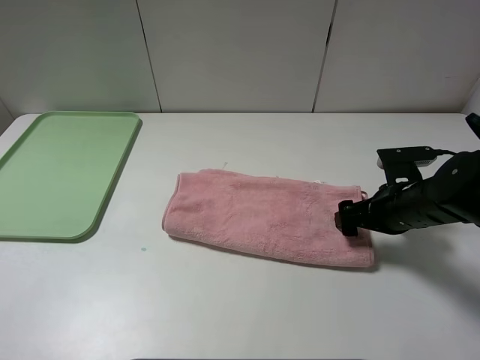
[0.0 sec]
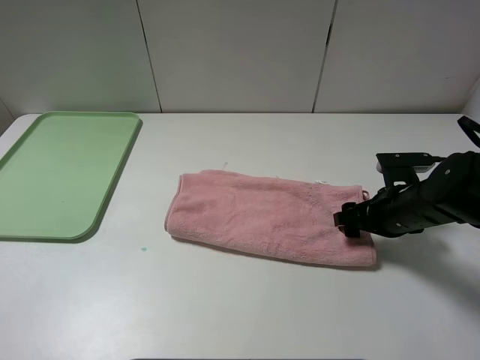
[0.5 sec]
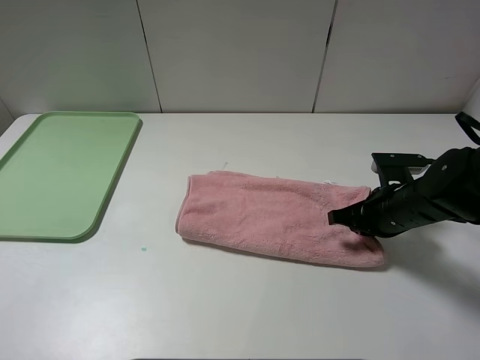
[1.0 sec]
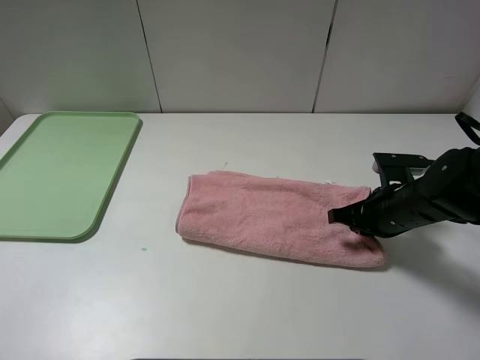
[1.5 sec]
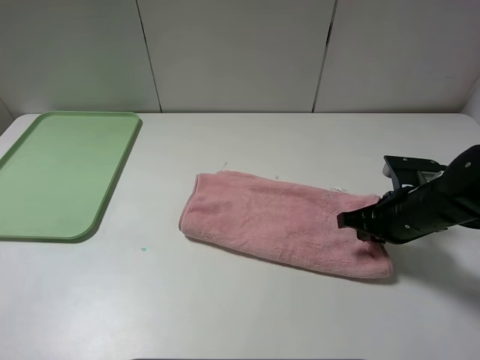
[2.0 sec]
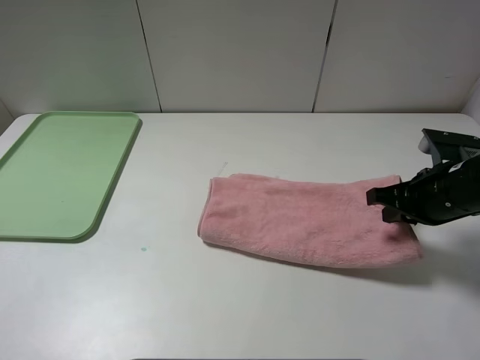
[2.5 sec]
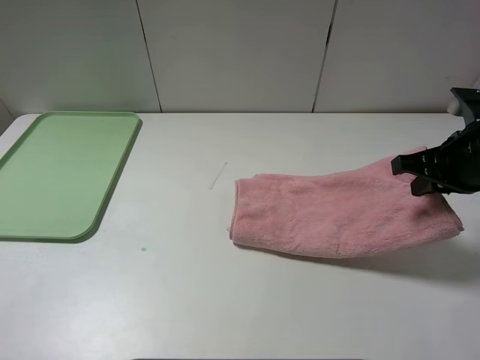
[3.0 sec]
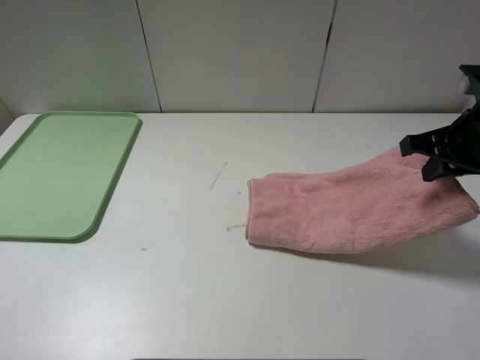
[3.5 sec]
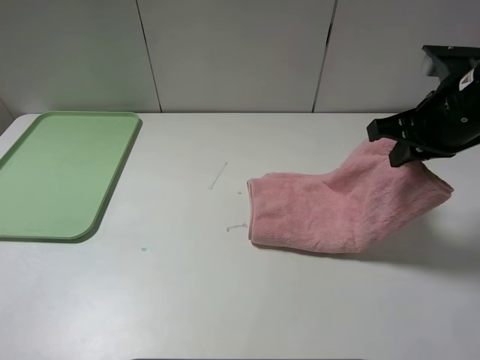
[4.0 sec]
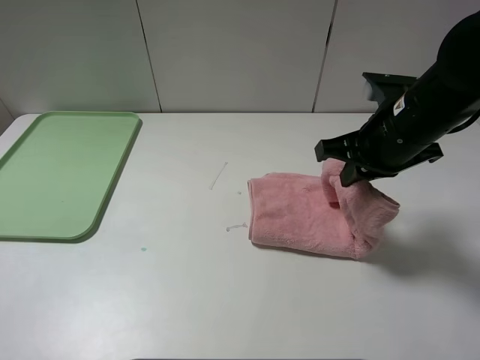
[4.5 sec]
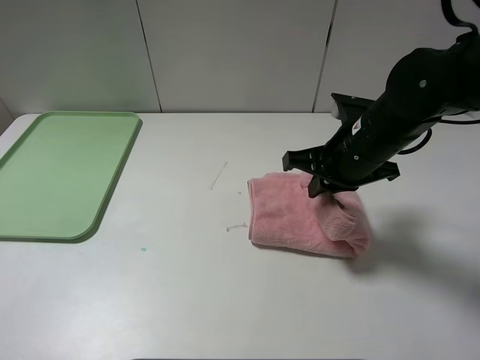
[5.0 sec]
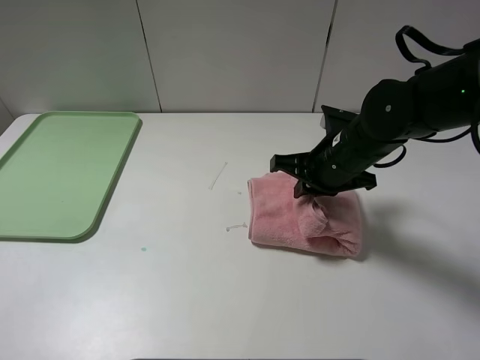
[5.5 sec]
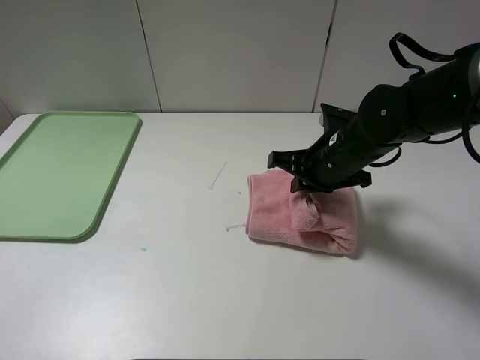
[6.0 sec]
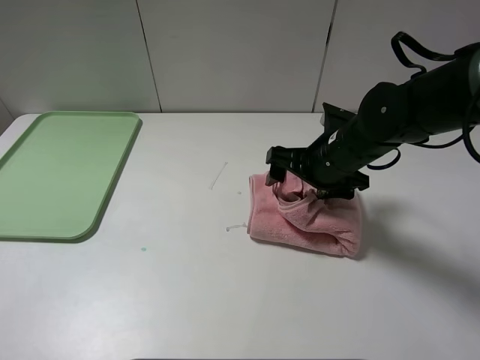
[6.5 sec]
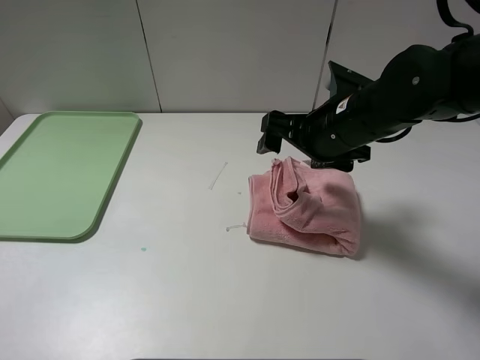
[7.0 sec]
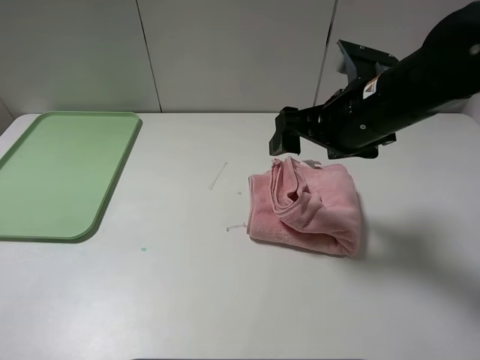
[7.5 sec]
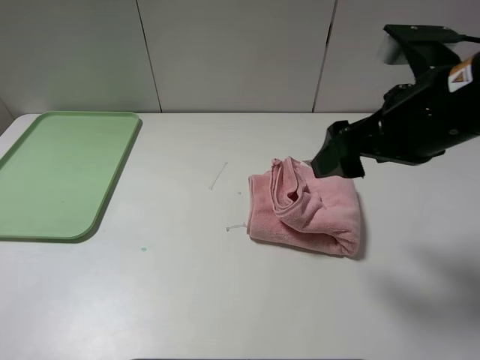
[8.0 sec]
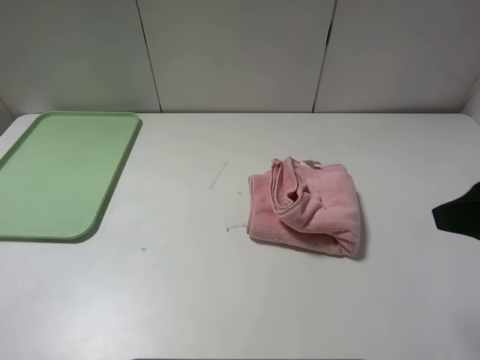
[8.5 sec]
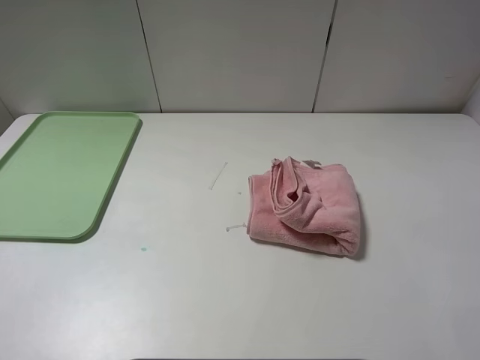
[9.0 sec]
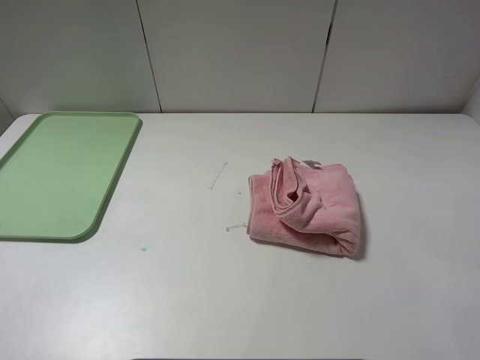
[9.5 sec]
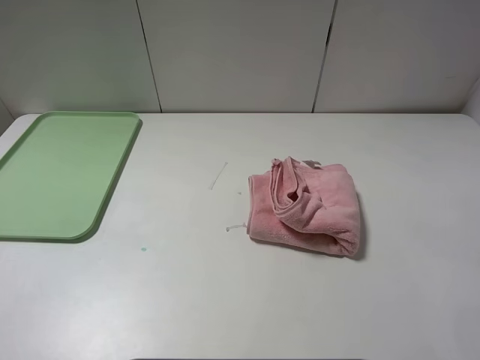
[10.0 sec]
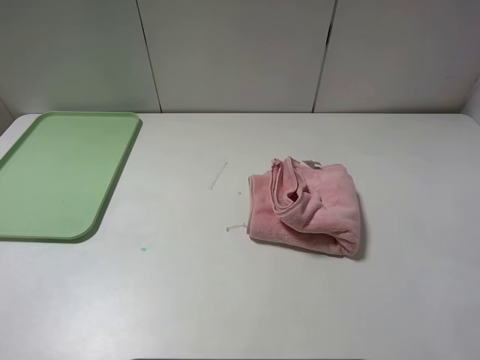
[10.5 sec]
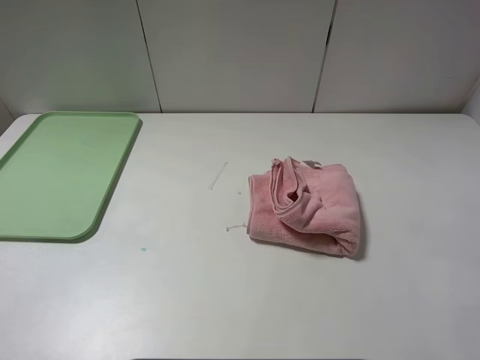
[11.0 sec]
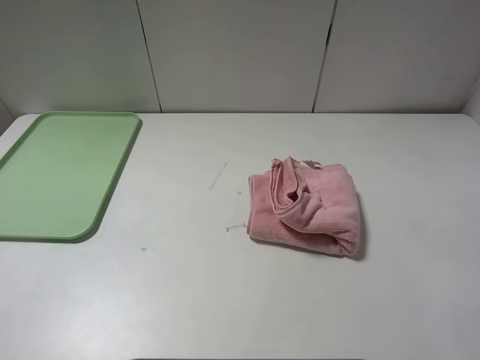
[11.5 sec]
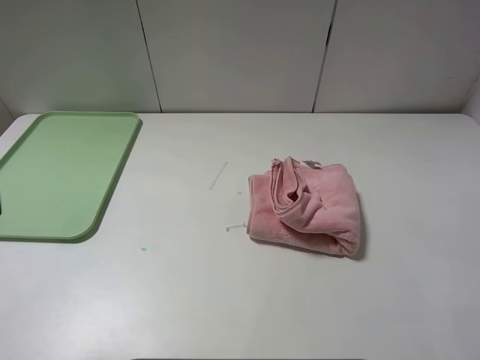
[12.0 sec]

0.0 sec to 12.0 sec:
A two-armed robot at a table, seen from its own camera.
Step, 0.0 sec to 6.5 sec: Fold the pink towel from right to left with right gripper.
0.0 sec to 2.0 sec: The right gripper closes up.
2.0 sec to 4.0 sec: The right gripper is displaced upward by roughly 15 cm.
4.0 sec to 6.0 sec: The right gripper travels downward and to the left by roughly 15 cm.
6.0 sec to 8.0 sec: The right gripper is displaced upward and backward by some 15 cm, and opens.
8.0 sec to 10.0 sec: The right gripper travels backward and to the right by about 25 cm.

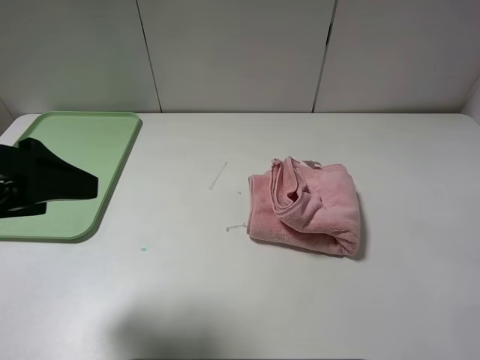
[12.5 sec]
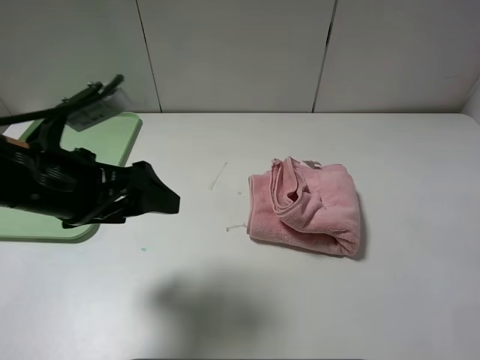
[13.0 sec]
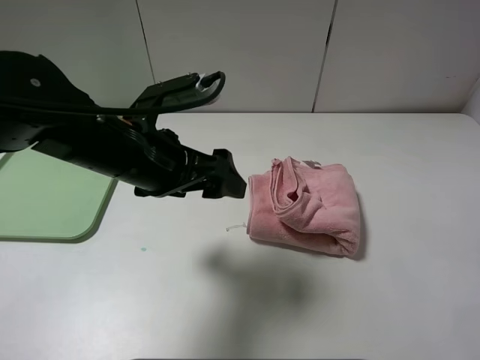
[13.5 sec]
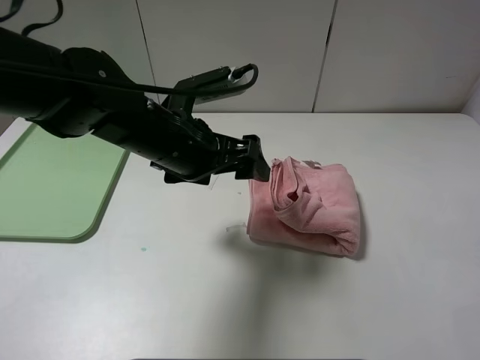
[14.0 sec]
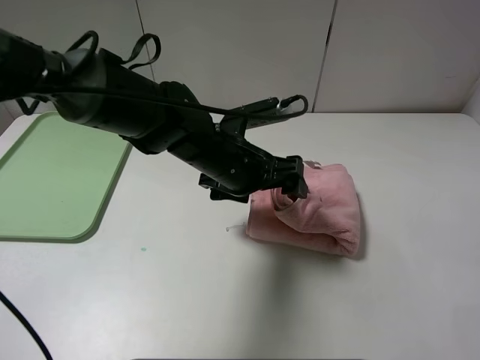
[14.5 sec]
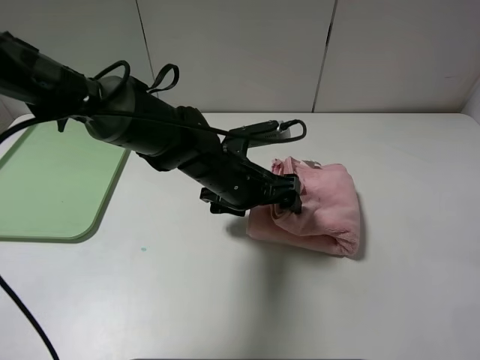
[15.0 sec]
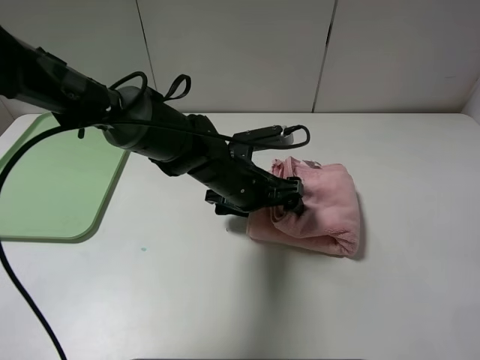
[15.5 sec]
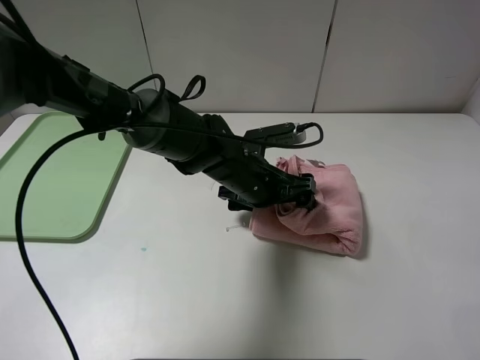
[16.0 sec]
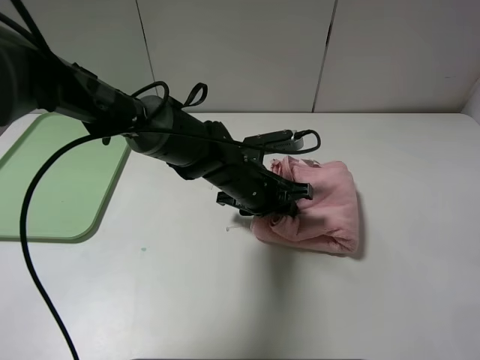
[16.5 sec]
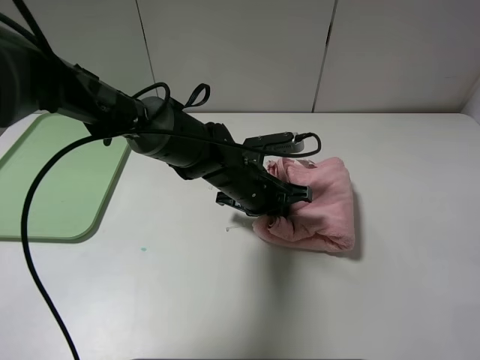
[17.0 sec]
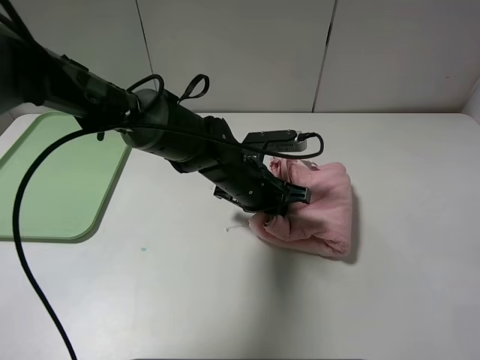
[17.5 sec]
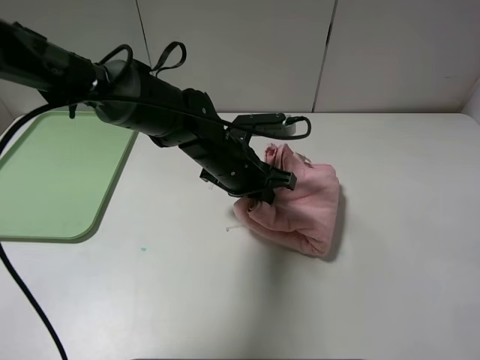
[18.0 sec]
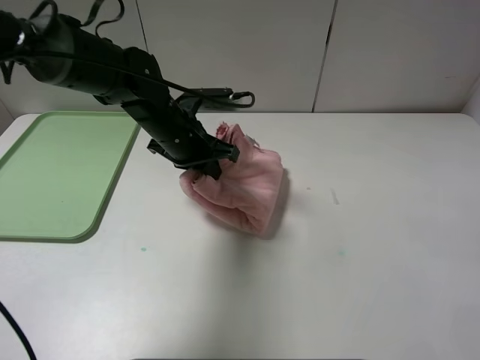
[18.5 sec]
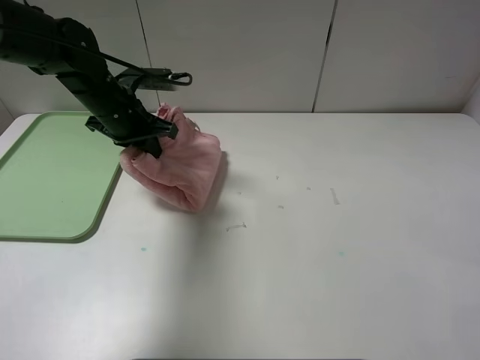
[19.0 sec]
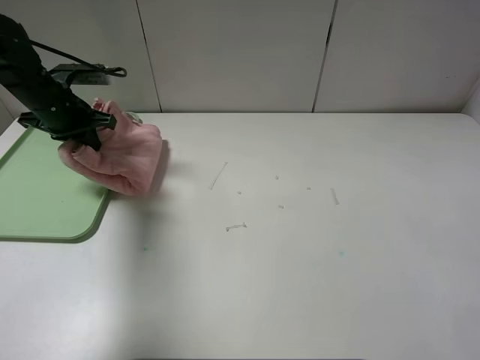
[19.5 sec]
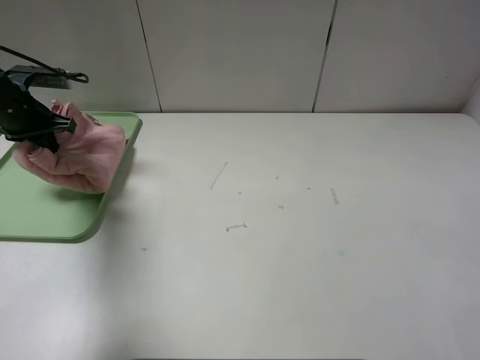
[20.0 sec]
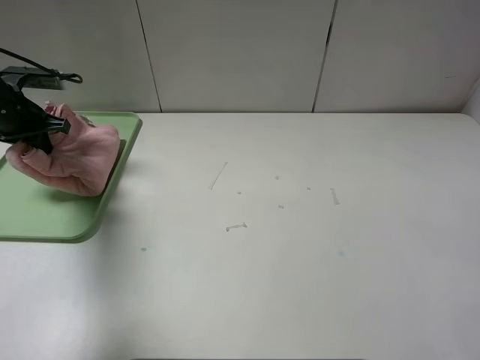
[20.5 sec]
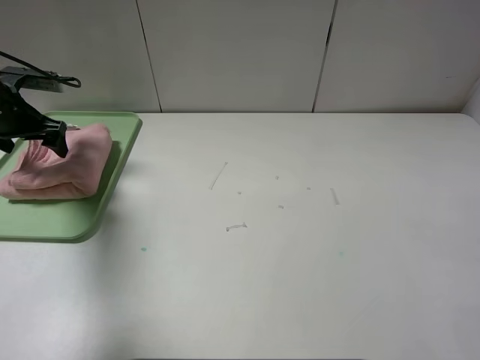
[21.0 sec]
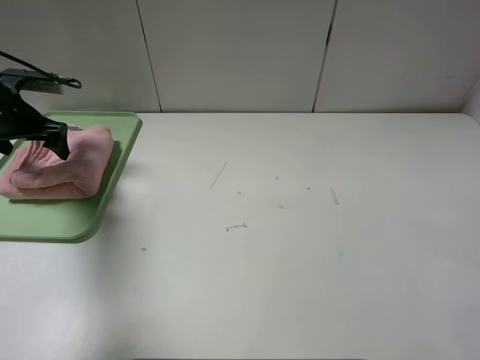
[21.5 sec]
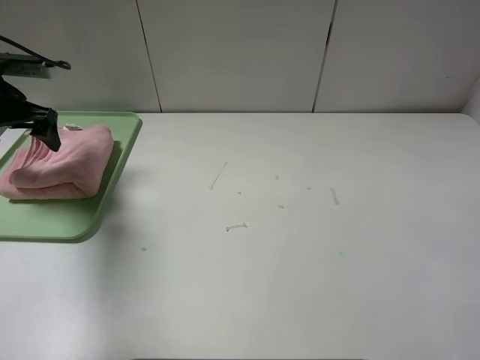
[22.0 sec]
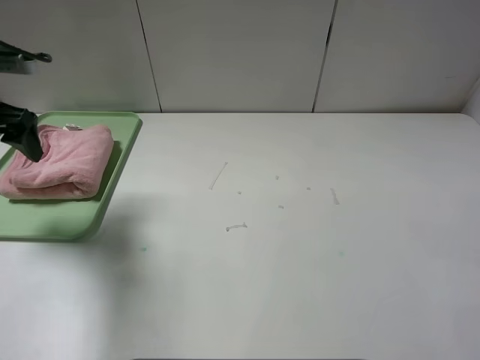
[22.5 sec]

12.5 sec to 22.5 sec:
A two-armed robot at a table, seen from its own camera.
Step, 12.5 sec to 21.0 sec: Place the folded pink towel on the tray with the left gripper.
12.5 sec to 14.5 sec: The left gripper travels to the right, forward and downward by some 30 cm.
14.5 sec to 16.5 sec: The left gripper goes about 5 cm downward, and closes its fingers.
16.5 sec to 18.5 sec: The left gripper is displaced to the left, upward and forward by about 15 cm.
18.5 sec to 20.5 sec: The left gripper moves to the left, about 25 cm.
20.5 sec to 22.5 sec: The left gripper heads backward and upward, covering approximately 10 cm, and opens.

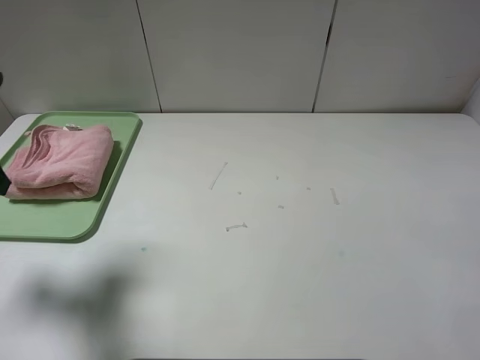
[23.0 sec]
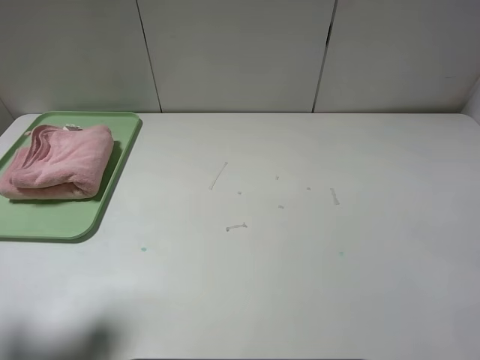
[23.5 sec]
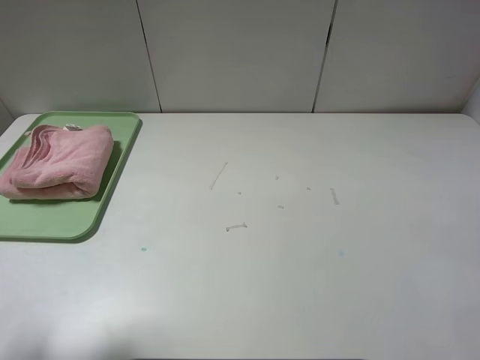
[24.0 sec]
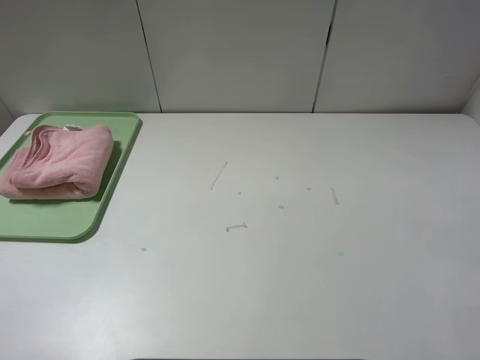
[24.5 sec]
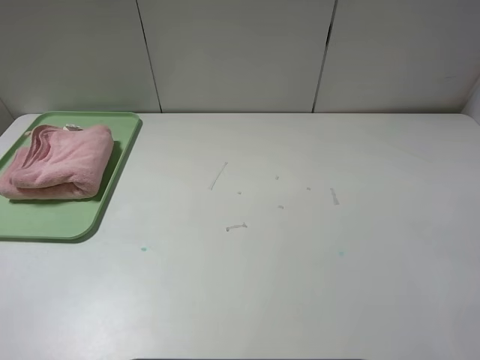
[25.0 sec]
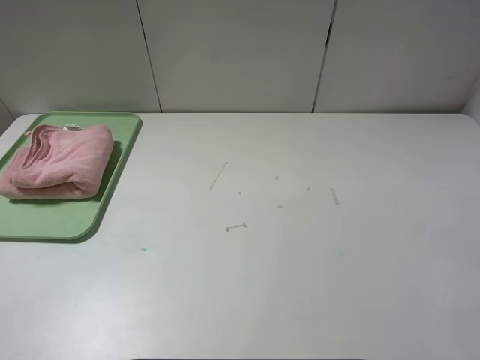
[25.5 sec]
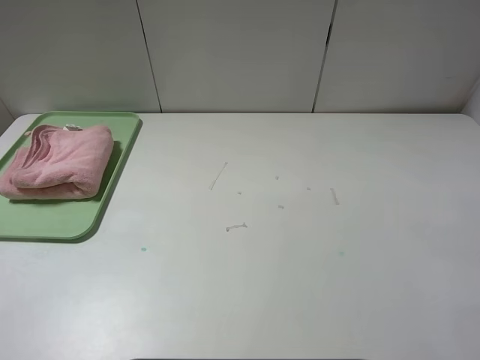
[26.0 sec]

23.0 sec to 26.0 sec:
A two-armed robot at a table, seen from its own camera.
23.0 sec to 24.5 sec: The left gripper travels backward by approximately 15 cm.
